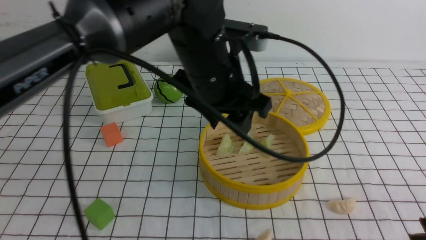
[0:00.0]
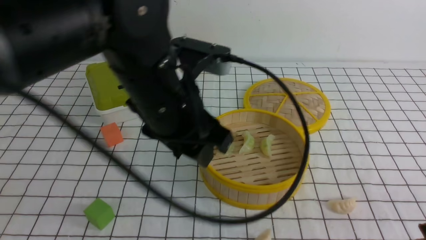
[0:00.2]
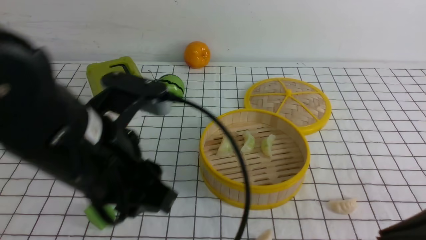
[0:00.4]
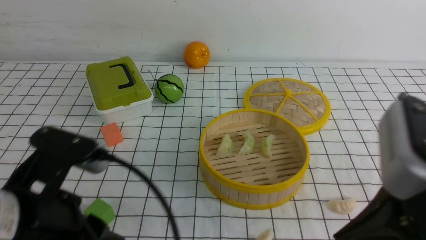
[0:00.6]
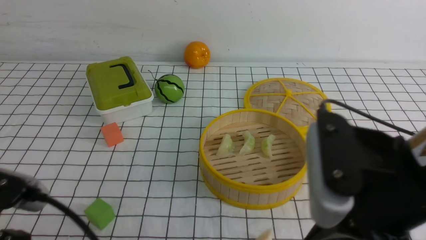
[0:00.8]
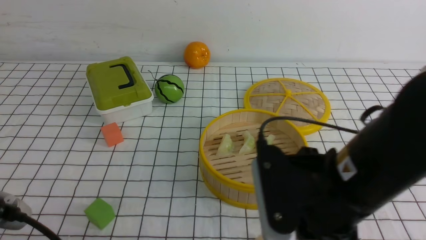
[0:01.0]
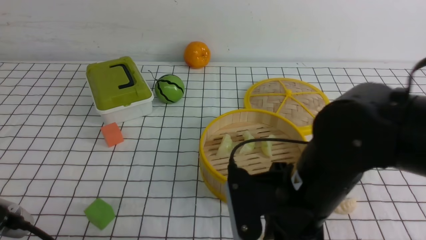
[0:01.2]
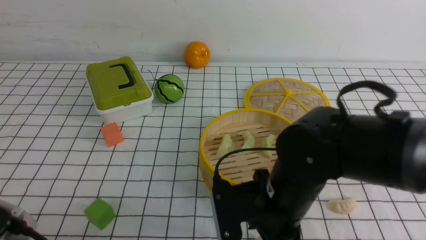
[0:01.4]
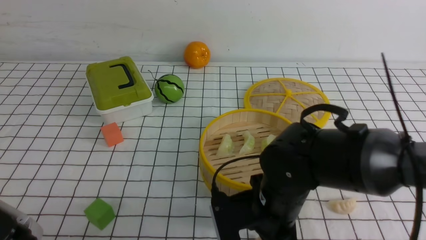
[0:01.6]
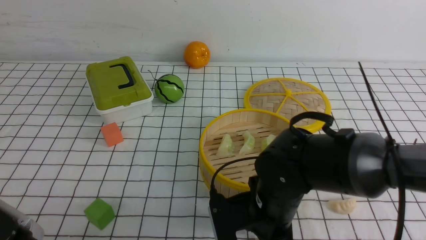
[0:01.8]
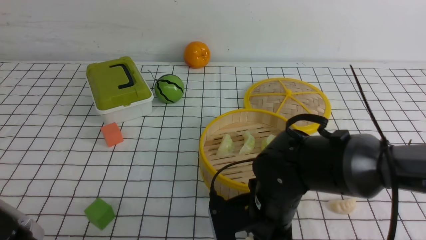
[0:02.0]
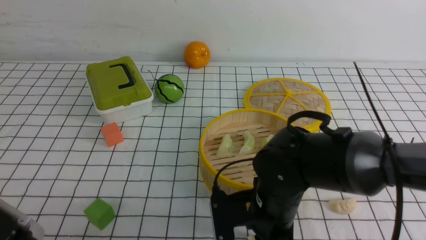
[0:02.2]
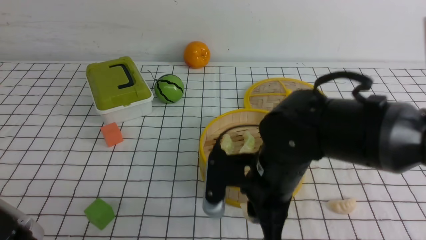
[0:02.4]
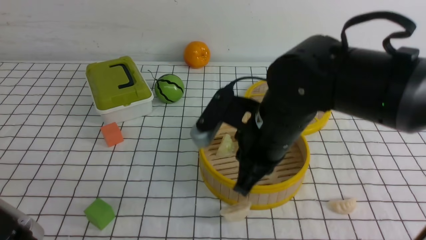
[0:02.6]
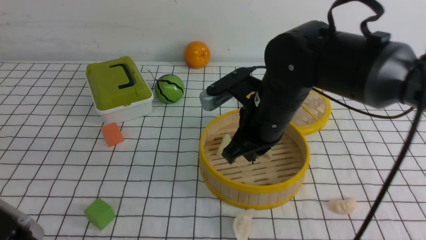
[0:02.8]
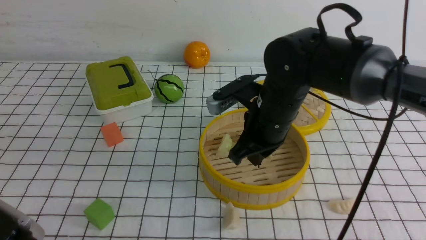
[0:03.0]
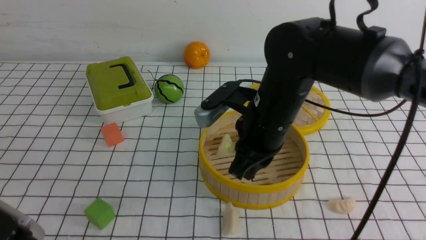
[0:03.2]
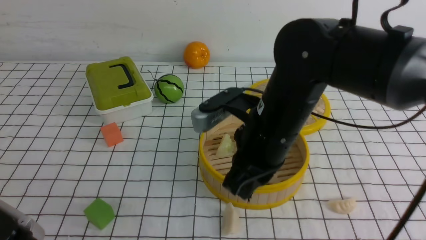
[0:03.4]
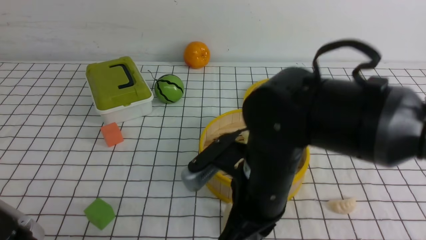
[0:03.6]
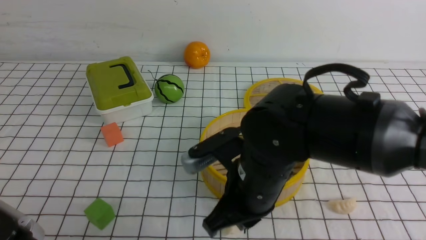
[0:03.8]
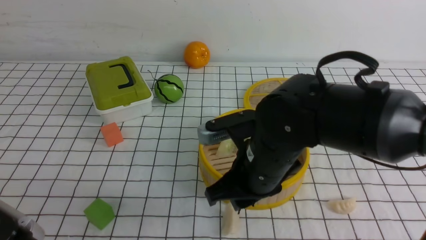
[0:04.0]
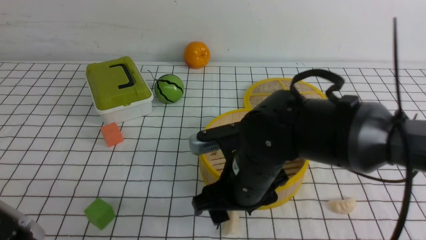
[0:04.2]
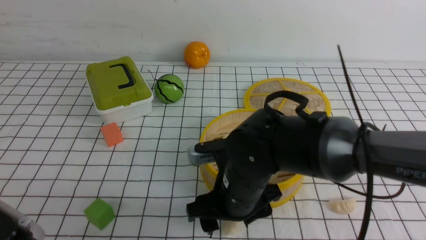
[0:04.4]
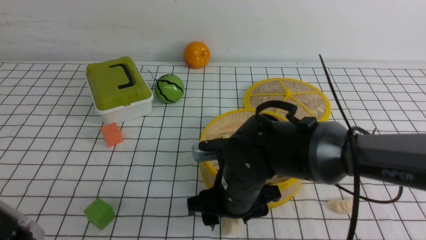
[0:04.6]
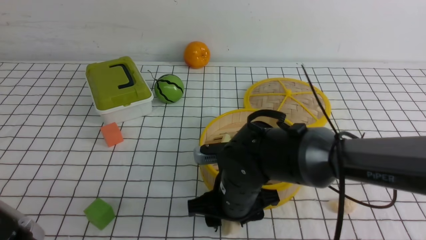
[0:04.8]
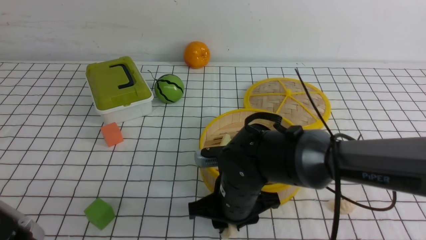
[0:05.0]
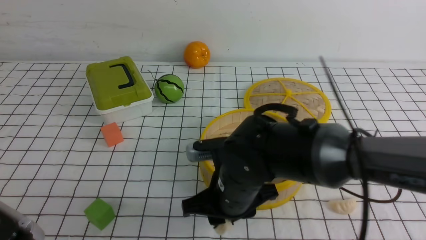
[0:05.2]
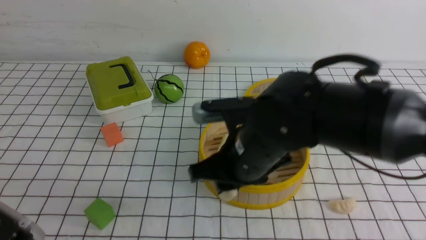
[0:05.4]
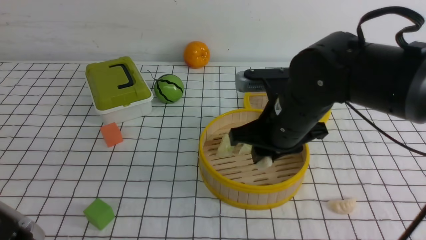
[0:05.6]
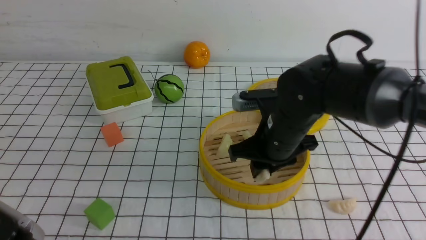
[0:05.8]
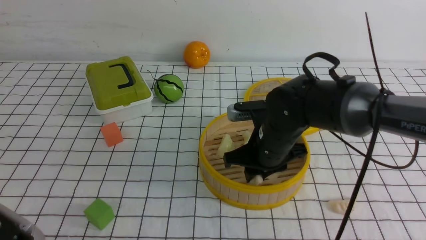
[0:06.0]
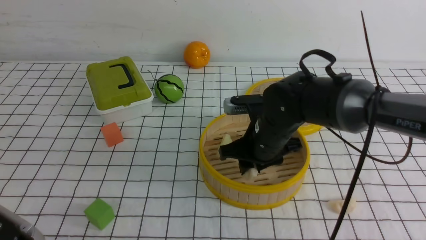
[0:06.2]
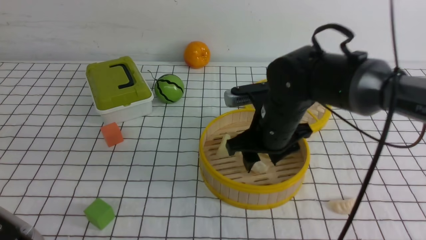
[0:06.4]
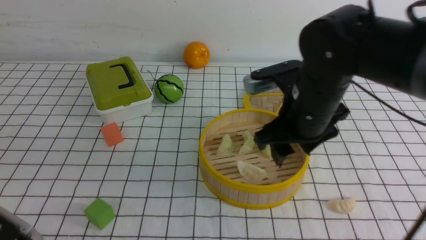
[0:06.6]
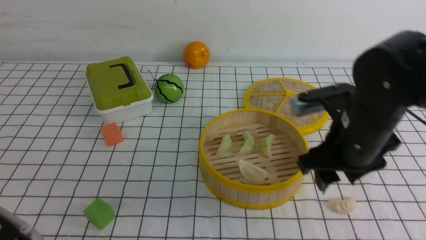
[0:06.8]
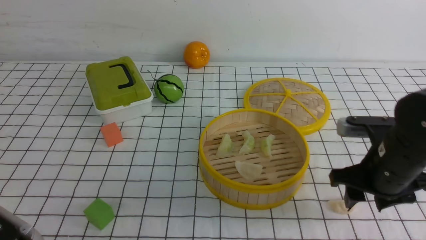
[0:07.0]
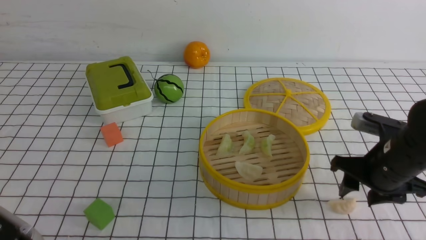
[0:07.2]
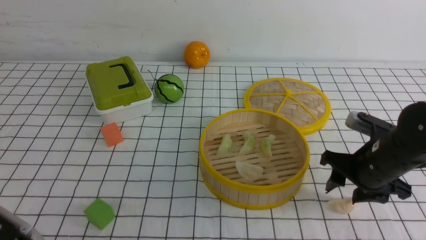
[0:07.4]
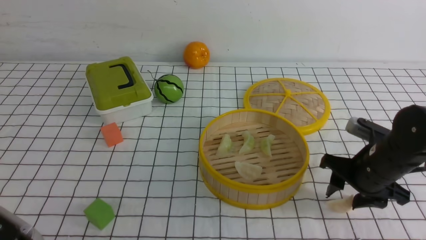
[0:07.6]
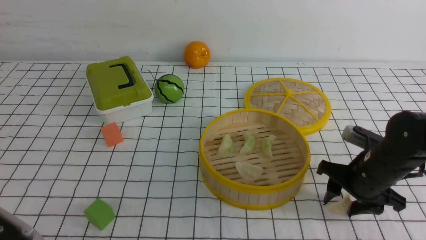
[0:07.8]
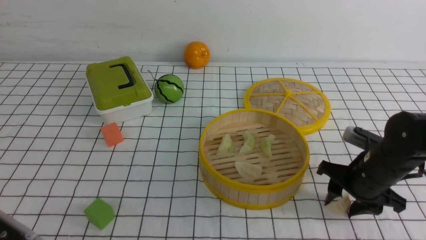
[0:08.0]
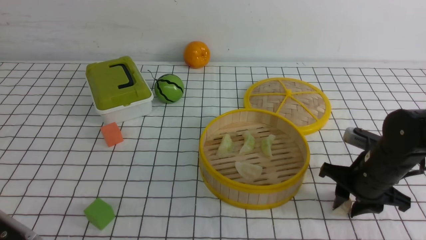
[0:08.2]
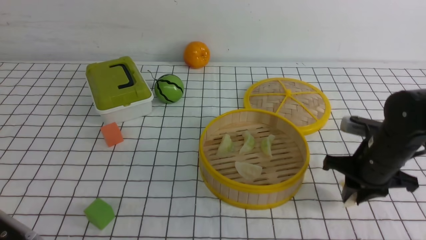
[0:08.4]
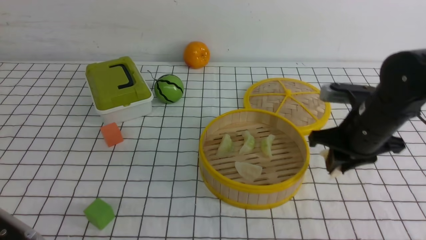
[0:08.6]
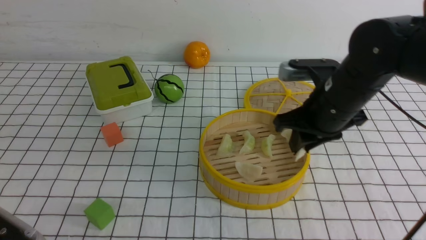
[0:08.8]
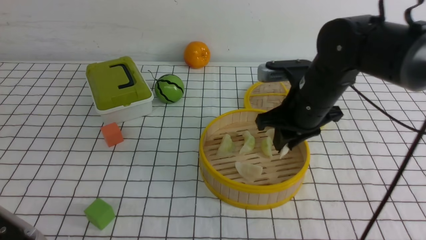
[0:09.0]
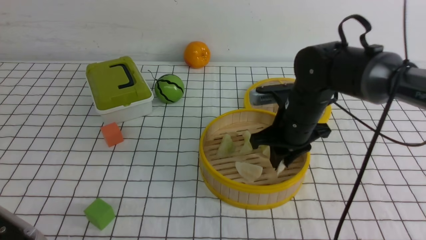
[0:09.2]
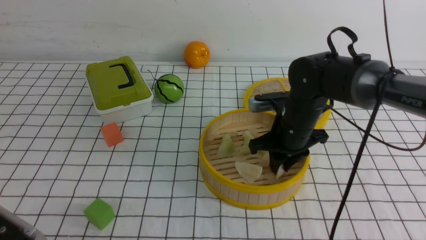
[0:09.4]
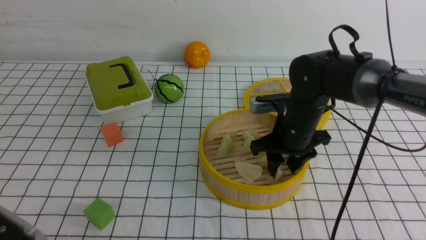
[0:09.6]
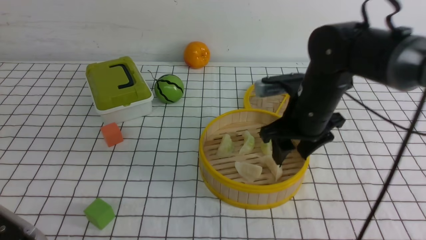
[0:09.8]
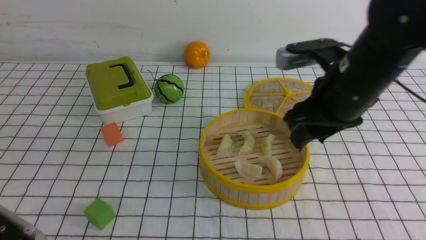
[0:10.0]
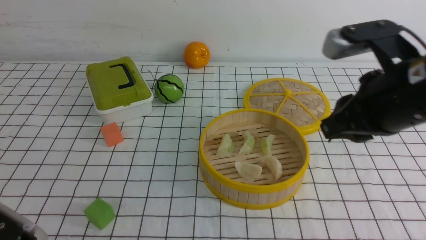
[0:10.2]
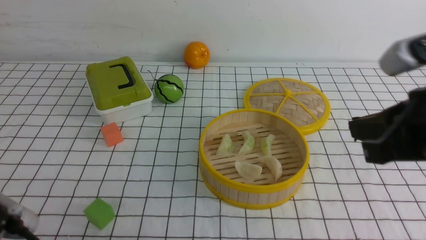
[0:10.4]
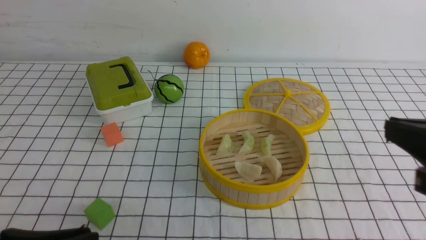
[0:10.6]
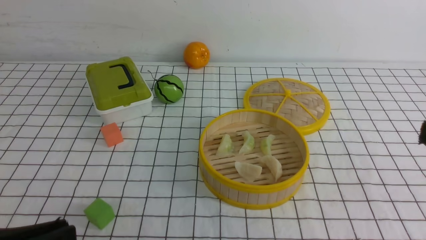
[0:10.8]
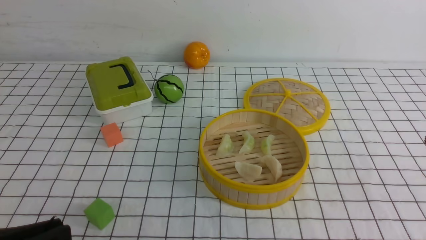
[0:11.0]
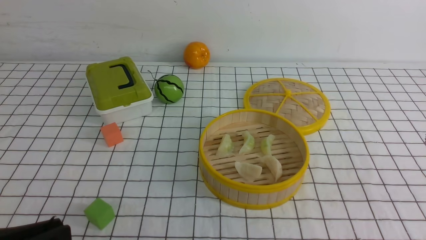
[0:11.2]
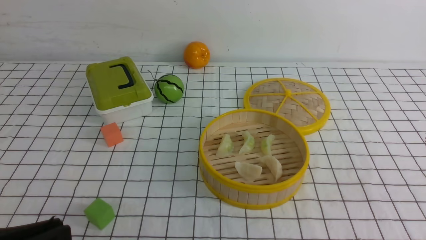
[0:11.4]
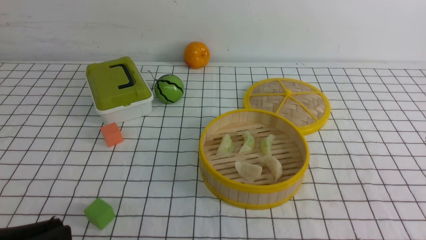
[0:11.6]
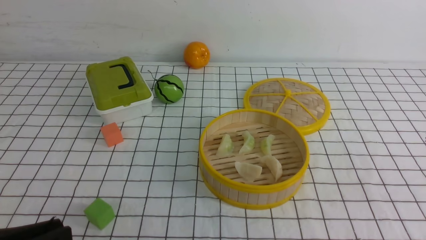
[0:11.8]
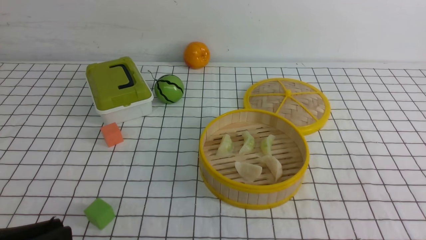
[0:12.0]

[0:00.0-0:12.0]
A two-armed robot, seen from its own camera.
Task of the whole recording: put the dumplings into the steamer on the table with the white tablecloth.
Step, 0:00.0 to 0:04.8: use the right arm to grab a dumpling.
Step, 0:05.2 to 0:06.4: use the right arm to put the dumpling into the steamer.
Step, 0:06.6 to 0:08.0: use the right arm to grab a dumpling.
Step, 0:08.4 to 0:09.8: use the right arm to put the dumpling into the steamer.
0:00.0 to 0:01.6: The right gripper goes about 30 cm to the left, downward and forward, and opens its fingers, while the left gripper is displaced backward and to the left by some 30 cm, and closes.
0:01.6 to 0:03.0: The right gripper travels forward and upward by about 10 cm, and closes.
0:03.0 to 0:04.4: The right gripper heads downward and backward, covering about 10 cm, and opens up.
0:04.4 to 0:06.0: The right gripper travels forward and to the right by some 10 cm, reaches approximately 5 cm upward, then returns, and closes up.
0:06.0 to 0:07.6: The right gripper travels to the right by roughly 15 cm, and opens.
0:07.6 to 0:09.0: The right gripper goes some 15 cm to the left, upward and forward, and closes.
0:09.0 to 0:10.4: The right gripper shifts approximately 25 cm backward, upward and to the right, and opens and closes again.
0:10.4 to 0:12.0: The right gripper goes about 10 cm backward and to the right.

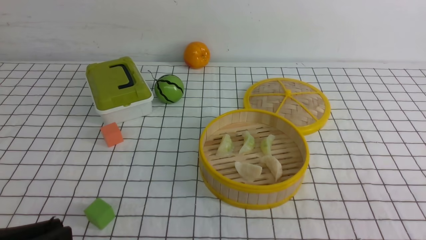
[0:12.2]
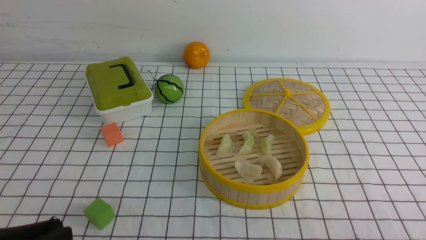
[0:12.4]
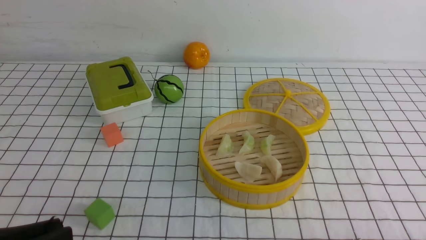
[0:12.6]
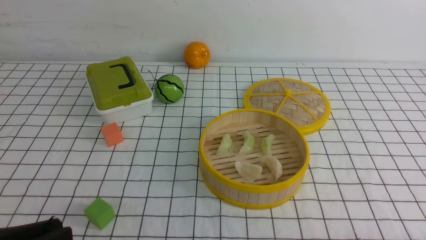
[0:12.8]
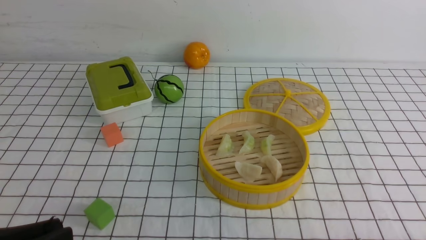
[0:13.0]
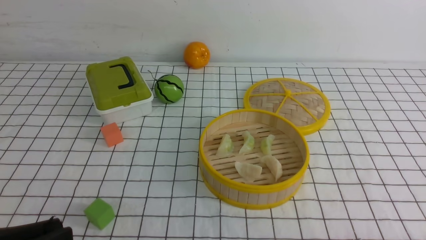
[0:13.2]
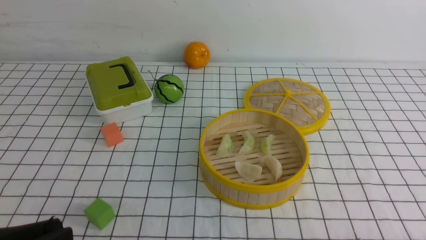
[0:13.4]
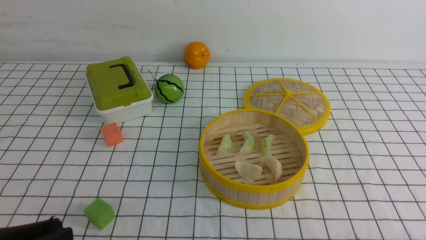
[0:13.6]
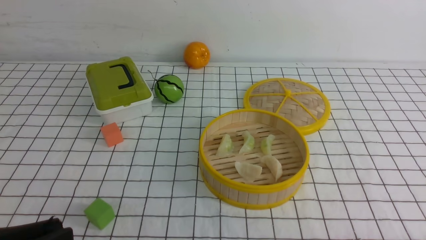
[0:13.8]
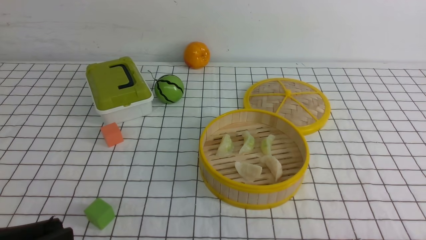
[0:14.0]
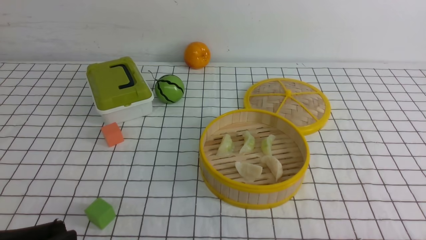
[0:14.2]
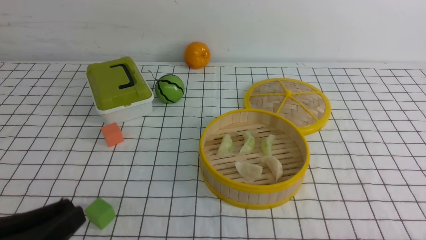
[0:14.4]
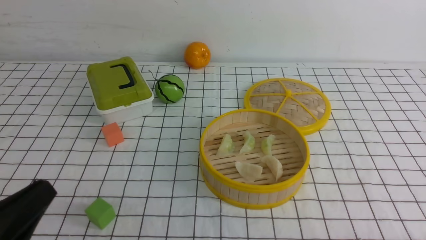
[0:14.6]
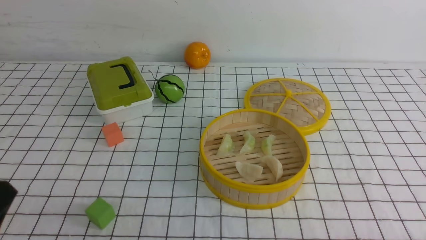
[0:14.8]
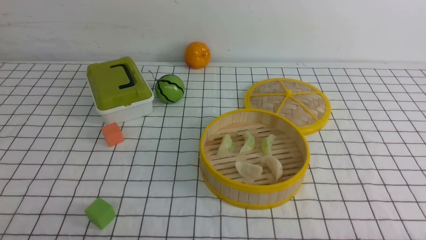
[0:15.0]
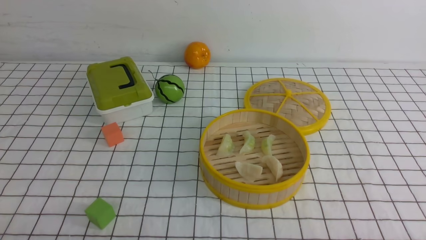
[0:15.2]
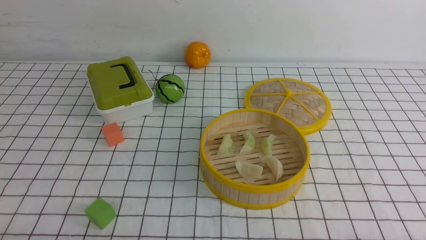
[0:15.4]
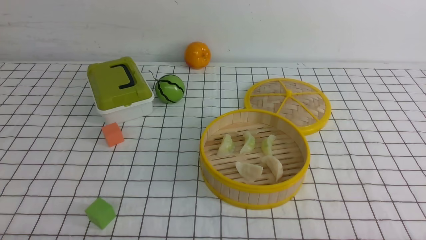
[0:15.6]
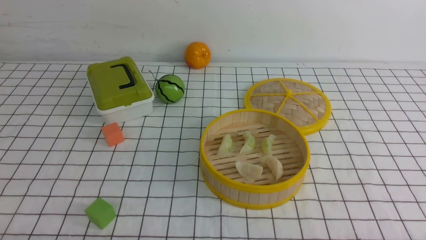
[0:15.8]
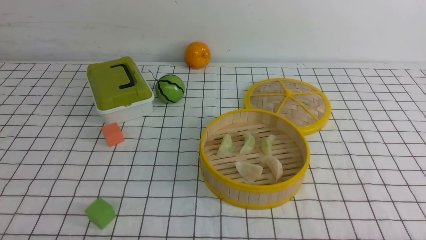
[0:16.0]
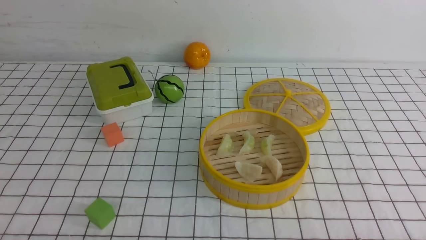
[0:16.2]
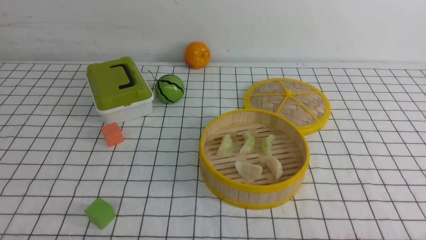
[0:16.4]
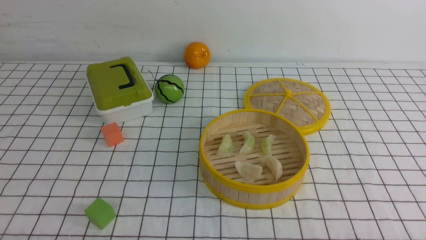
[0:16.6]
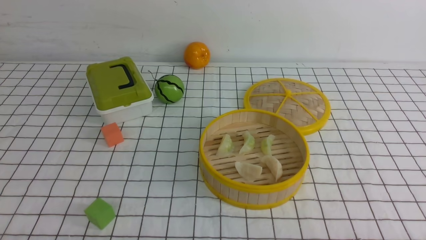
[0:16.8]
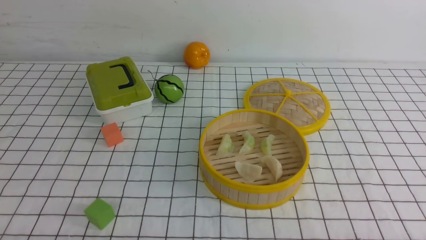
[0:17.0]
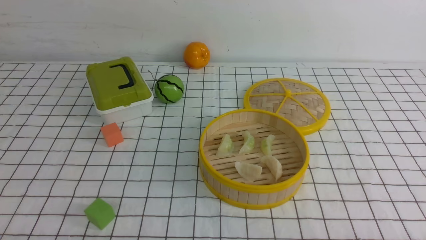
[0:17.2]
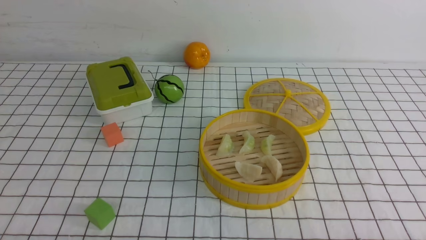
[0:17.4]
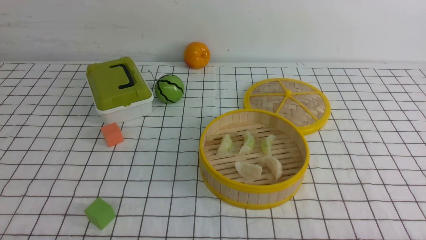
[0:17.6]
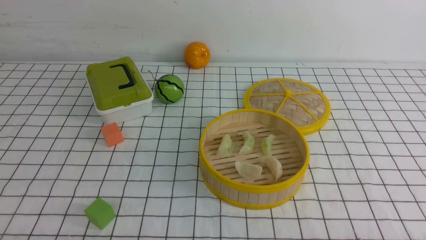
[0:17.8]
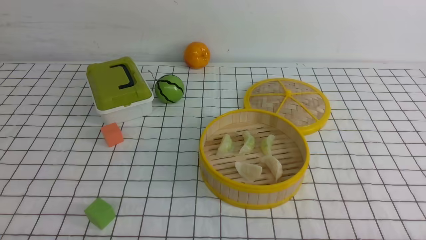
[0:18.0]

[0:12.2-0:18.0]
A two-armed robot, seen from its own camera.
Task of the whole recording: put the dumplings into the steamer on the table with the white tablecloth.
0:13.6 to 0:15.0: The left gripper is displaced downward by some 5 cm, and closes up.
0:16.6 to 0:18.0: Neither gripper changes place.
